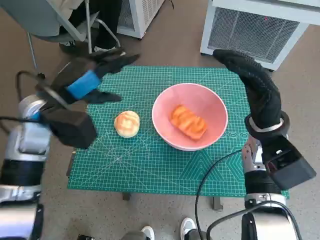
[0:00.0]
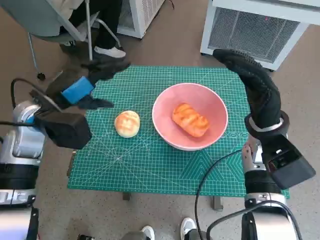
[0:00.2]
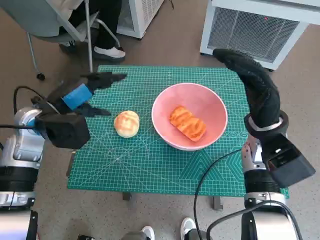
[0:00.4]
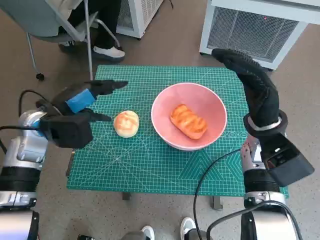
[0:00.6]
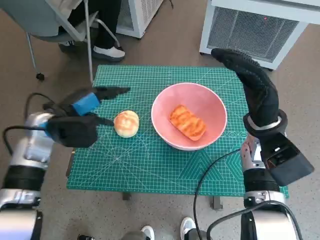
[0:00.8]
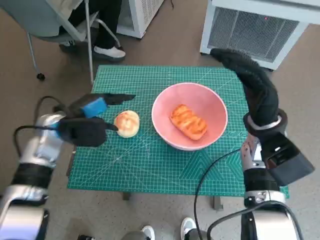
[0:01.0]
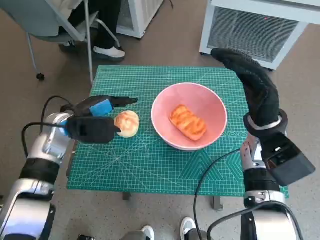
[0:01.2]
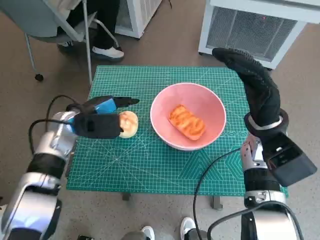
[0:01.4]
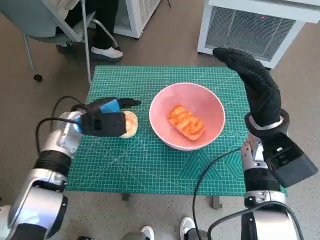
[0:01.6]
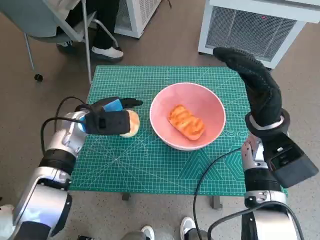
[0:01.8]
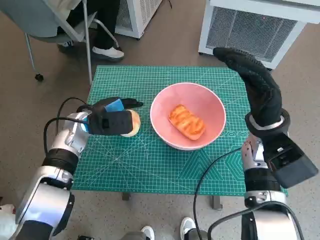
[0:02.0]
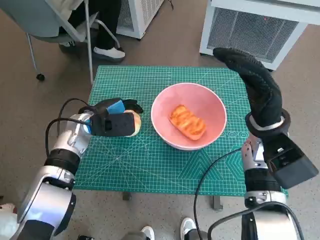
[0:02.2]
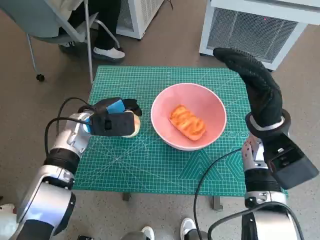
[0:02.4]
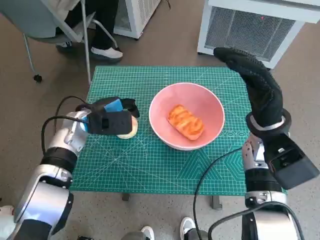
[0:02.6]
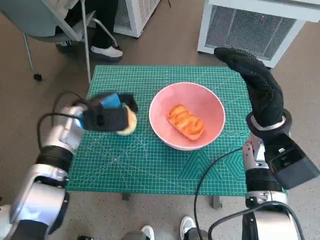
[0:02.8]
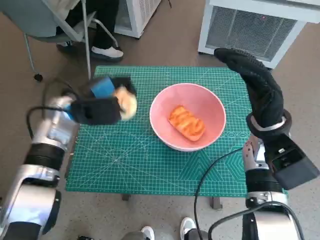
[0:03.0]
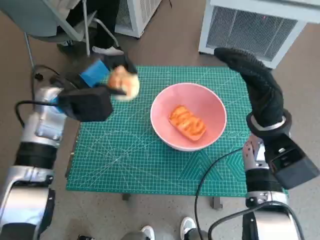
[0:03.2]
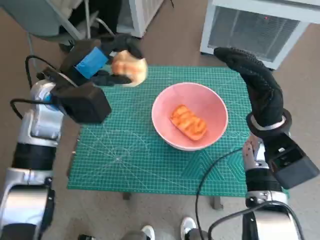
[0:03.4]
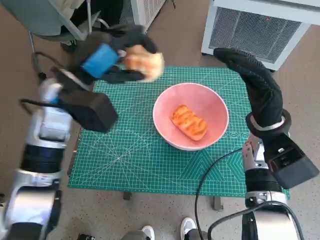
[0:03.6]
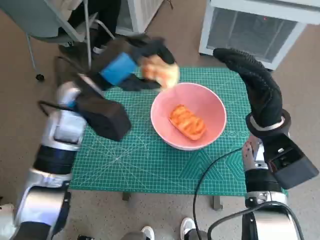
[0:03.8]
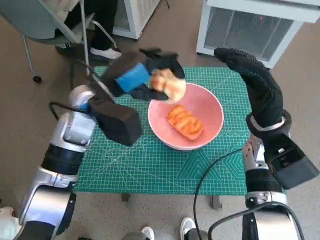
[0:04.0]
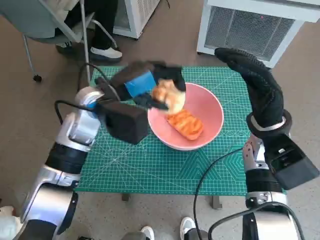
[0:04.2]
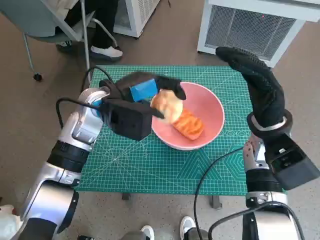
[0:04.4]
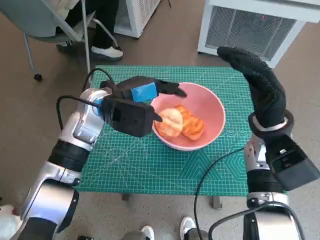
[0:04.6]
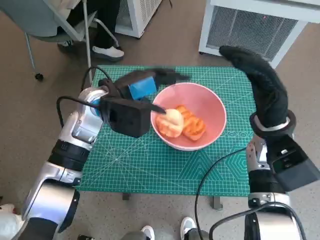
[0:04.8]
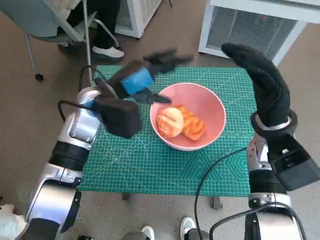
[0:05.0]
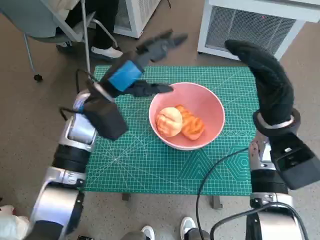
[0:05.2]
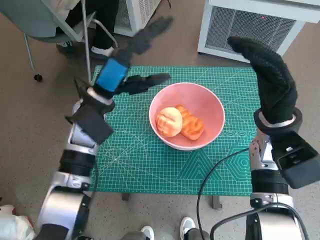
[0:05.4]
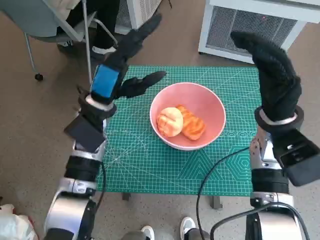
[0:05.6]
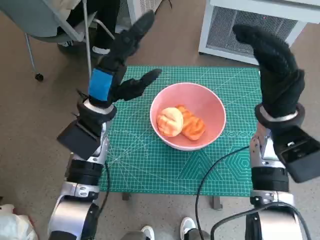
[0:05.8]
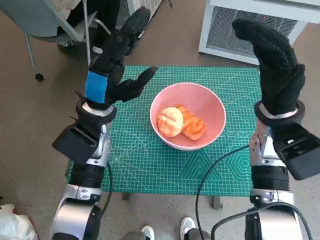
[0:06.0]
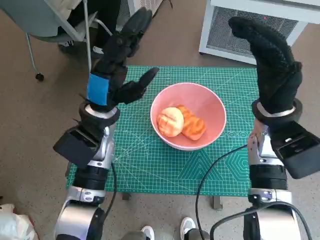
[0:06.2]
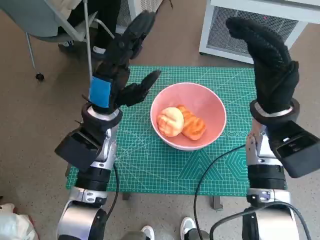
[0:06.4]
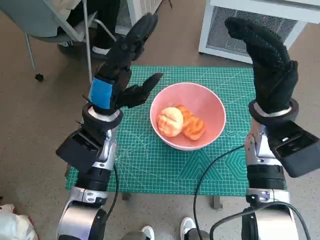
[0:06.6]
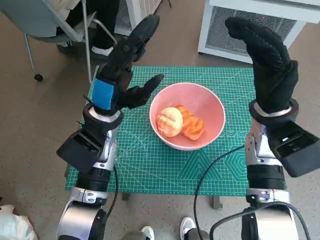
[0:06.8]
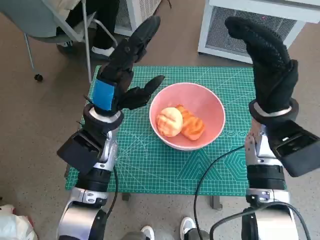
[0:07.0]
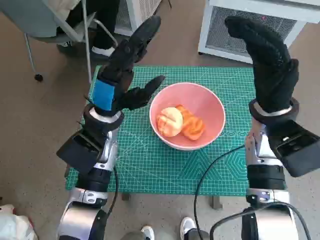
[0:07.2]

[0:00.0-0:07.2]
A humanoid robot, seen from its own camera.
Task of the whole recording: Push the bowl to the center of the table and put the bread into the bowl.
Step, 0:00.0 to 0:02.2: Grasp the round bread with left hand.
Step, 0:02.6 to 0:04.8: Place the round bread in pink bowl with left hand.
0:00.0 to 0:01.4: The left hand heads downward, covering some 10 cm.
0:01.4 to 0:02.8: The hands move only a little.
0:02.8 to 0:04.4: The left hand moves upward and to the right, roughly 10 cm.
0:05.8 to 0:07.2: The hands move only a little.

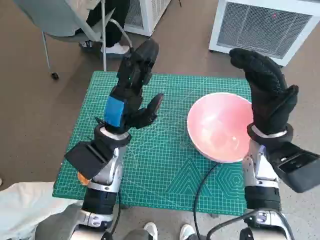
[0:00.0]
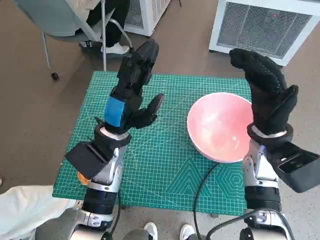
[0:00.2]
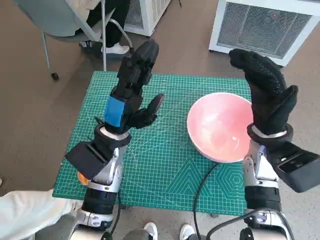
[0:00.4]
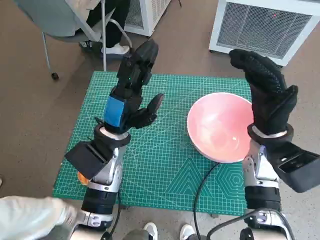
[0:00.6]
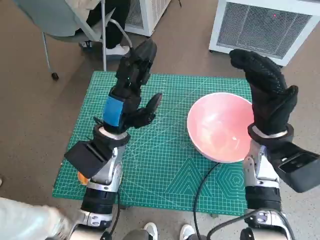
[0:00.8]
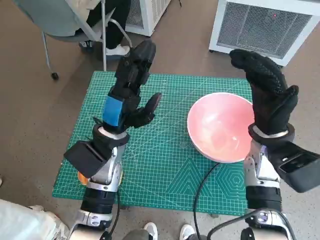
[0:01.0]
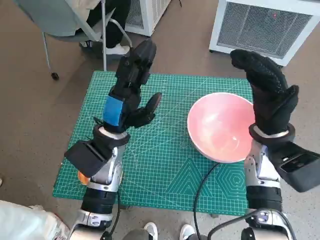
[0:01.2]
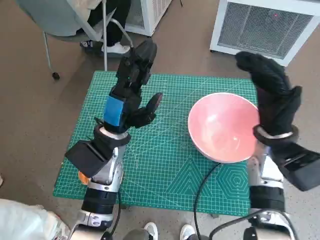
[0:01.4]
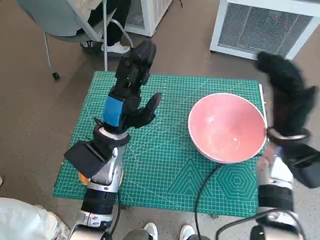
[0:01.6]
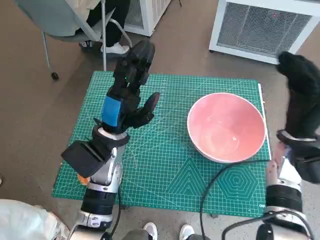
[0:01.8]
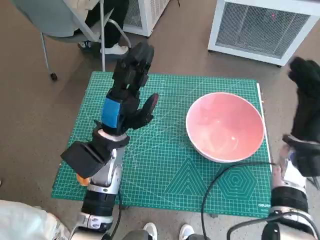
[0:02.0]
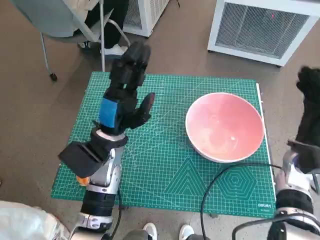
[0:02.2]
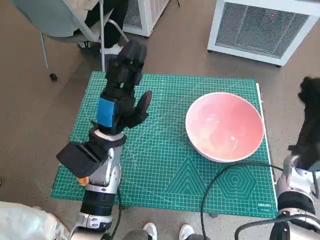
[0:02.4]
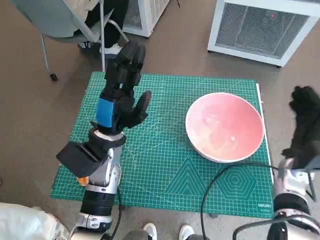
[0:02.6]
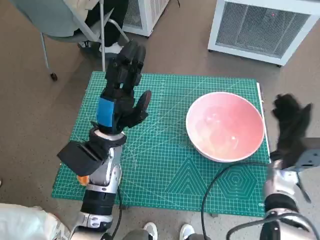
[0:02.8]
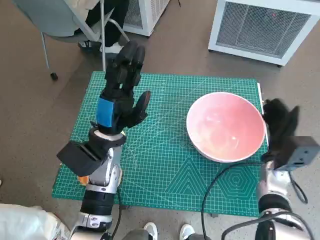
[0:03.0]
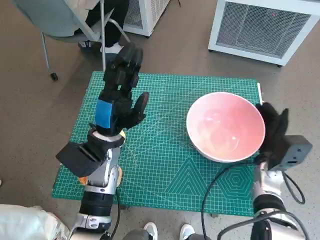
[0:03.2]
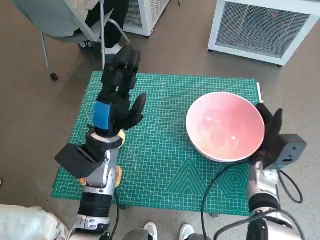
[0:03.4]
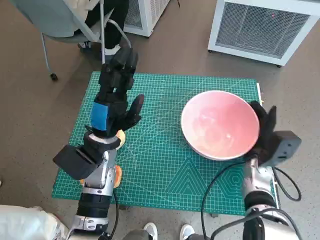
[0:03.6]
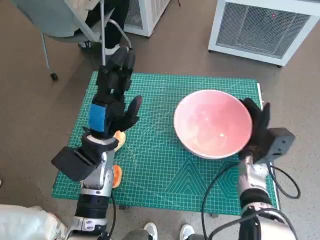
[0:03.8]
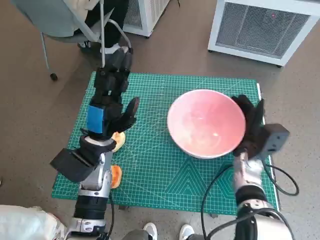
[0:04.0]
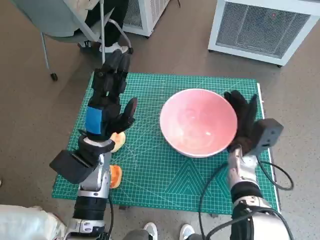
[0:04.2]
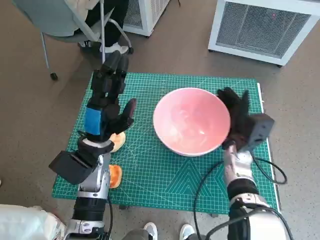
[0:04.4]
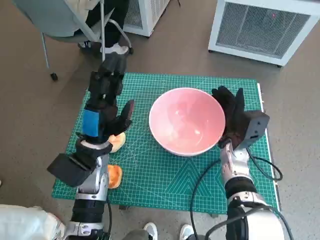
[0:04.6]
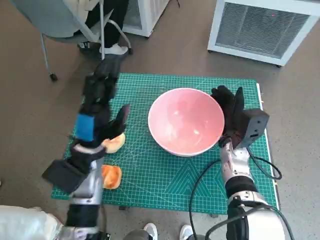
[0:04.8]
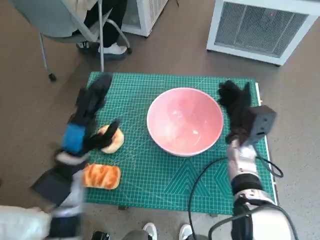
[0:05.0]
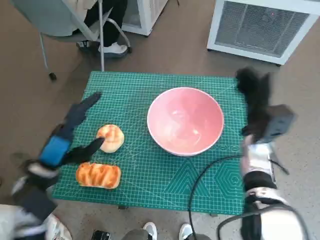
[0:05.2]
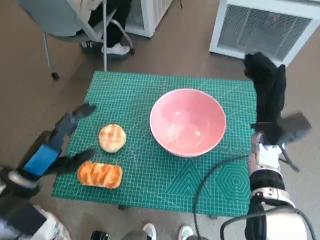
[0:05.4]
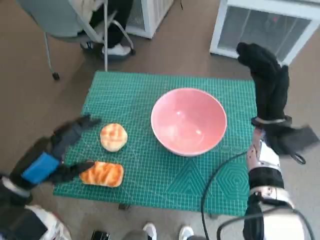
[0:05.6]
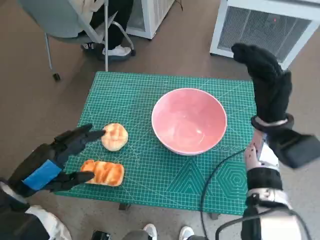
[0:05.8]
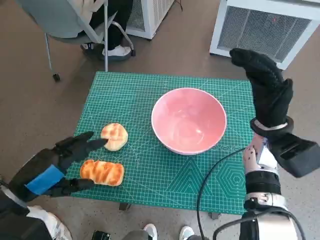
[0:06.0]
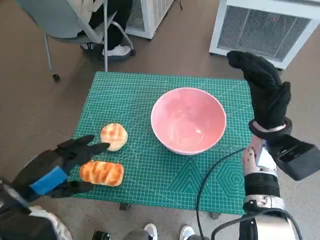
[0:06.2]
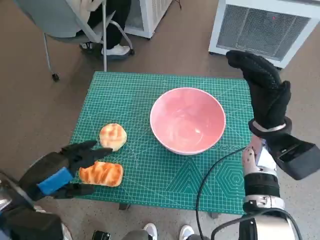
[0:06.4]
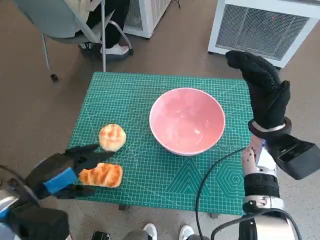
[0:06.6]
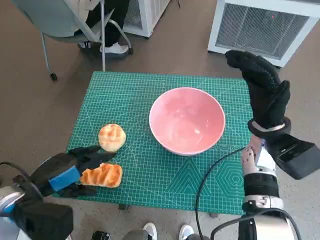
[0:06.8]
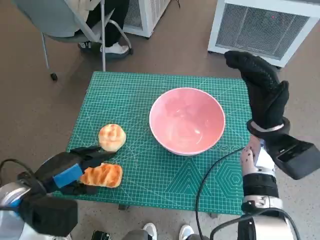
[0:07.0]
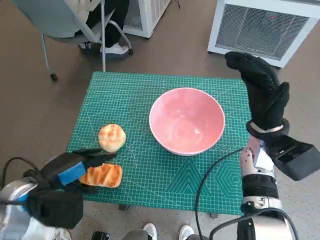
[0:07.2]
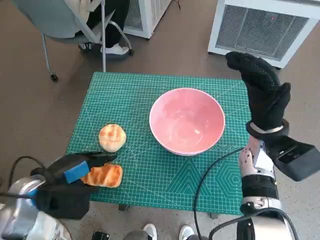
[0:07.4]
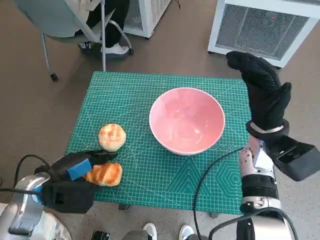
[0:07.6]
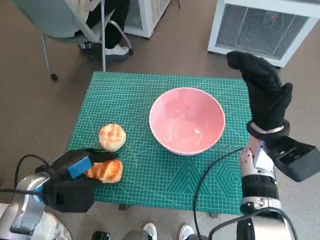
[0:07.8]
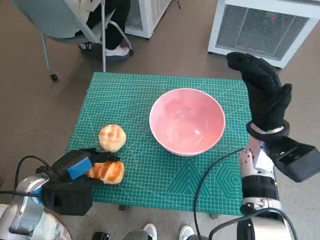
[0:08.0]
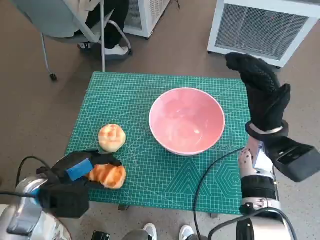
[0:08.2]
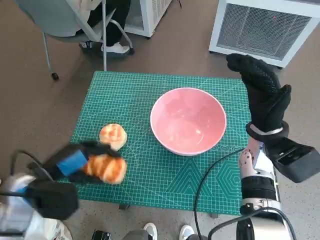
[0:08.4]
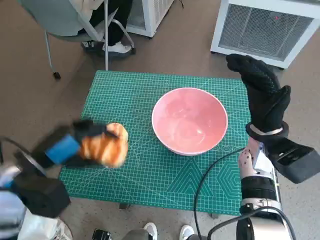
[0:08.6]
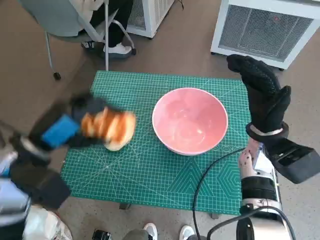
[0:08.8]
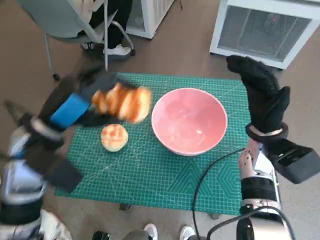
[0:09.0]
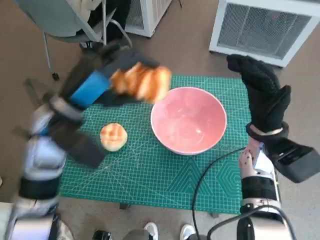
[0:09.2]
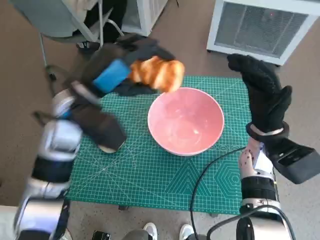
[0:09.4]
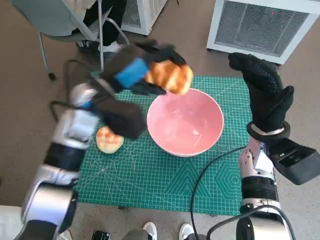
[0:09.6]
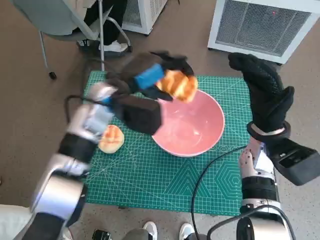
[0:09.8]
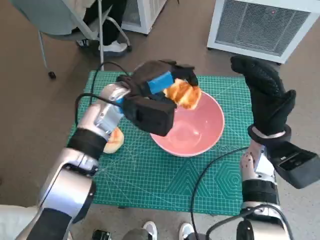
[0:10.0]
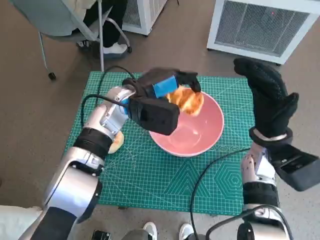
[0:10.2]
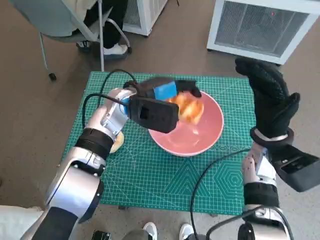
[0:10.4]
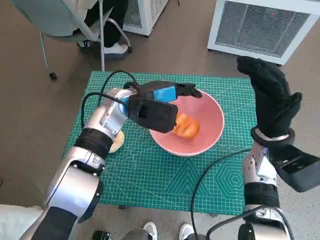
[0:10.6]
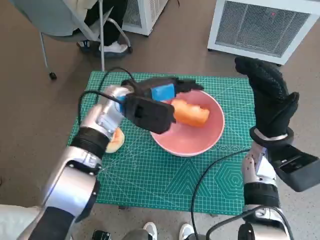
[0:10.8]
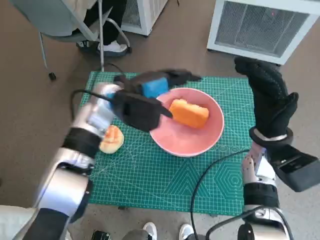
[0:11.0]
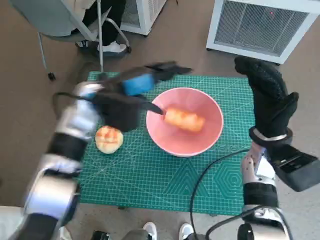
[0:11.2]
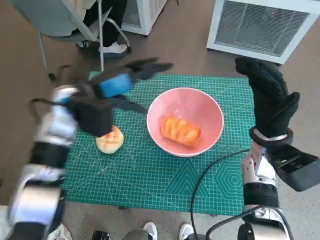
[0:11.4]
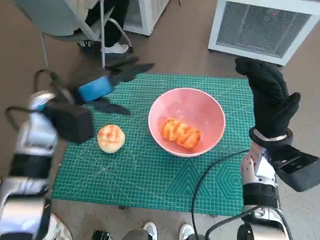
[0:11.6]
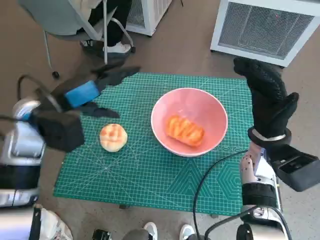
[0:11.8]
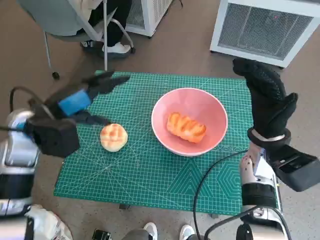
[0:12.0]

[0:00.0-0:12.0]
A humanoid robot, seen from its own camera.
Task of the whole recording: Push the bowl to the center of the table and put the bread into the bowl.
Step, 0:00.0 to 0:05.2: Move the pink bowl to the center of table with right hand.
Step, 0:05.4 to 0:08.0: Grasp the long bread with left hand.
Step, 0:08.2 to 0:11.0: Place the long bread in pink bowl with left hand.
0:01.6 to 0:03.0: The right hand shifts roughly 10 cm downward.
0:03.0 to 0:04.4: The right hand shifts roughly 10 cm to the left.
0:04.4 to 0:06.0: The left hand travels backward, to the left and upward by some 15 cm, while the right hand heads upward, covering approximately 10 cm.
0:06.0 to 0:07.6: The left hand moves downward and forward, approximately 10 cm.
0:07.6 to 0:09.0: The left hand travels upward by about 10 cm.
0:09.0 to 0:10.4: The left hand travels to the right and forward by approximately 15 cm.
0:10.4 to 0:12.0: The left hand travels to the left and backward by some 15 cm.

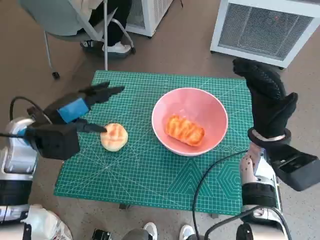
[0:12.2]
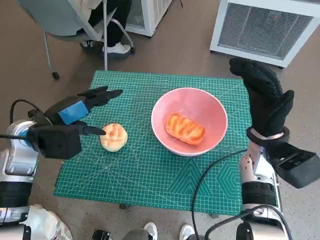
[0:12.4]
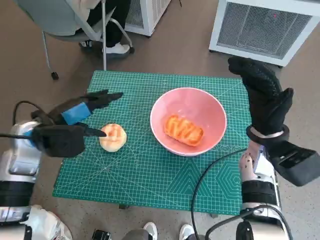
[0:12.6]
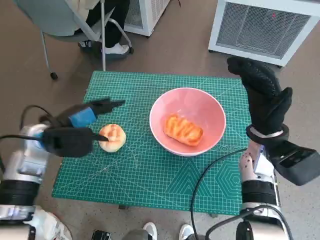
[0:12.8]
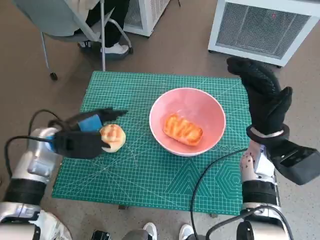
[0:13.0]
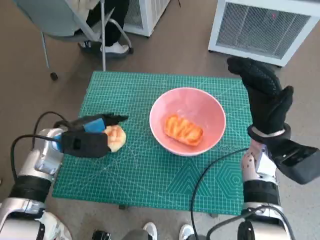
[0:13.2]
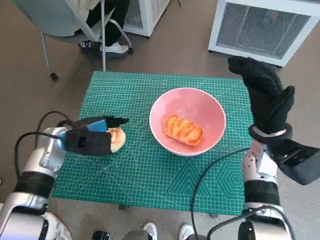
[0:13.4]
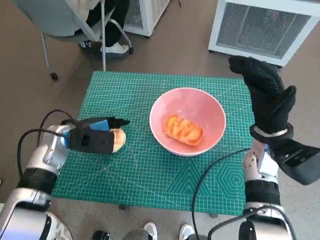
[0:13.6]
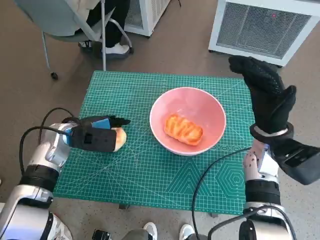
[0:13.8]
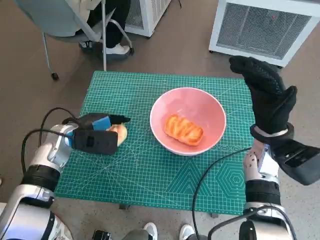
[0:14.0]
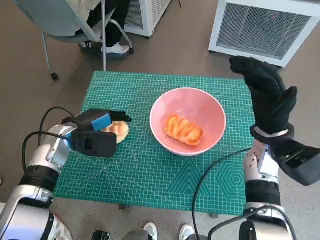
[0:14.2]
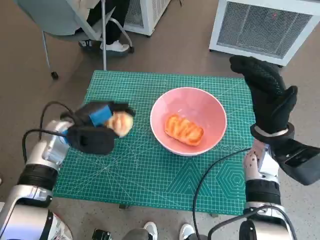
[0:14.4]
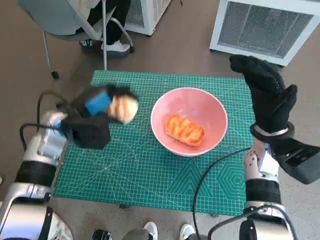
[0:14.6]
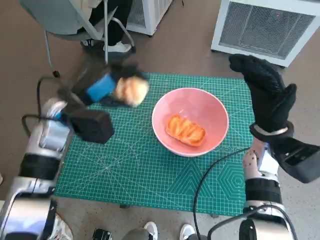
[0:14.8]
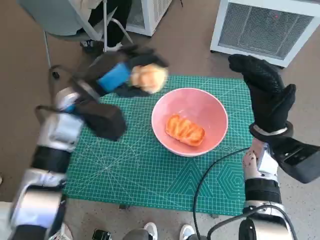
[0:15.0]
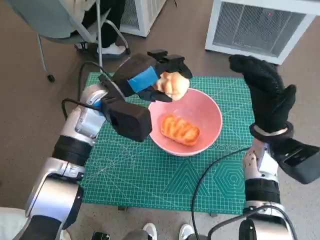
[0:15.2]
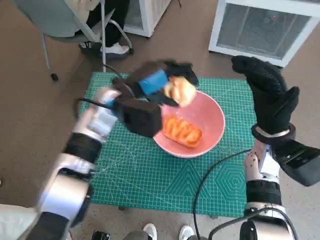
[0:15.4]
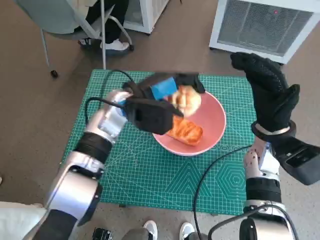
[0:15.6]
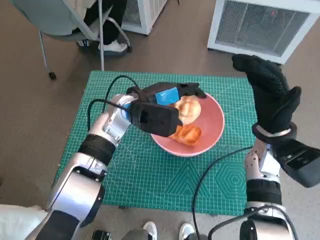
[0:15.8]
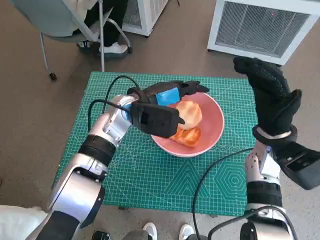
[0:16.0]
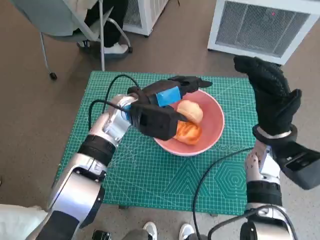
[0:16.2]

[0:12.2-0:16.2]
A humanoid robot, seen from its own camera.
Task of the whole recording: Push the bowl to the center of the table and put the bread into the bowl.
Step, 0:12.2 to 0:13.8: Grasp the round bread with left hand.
0:12.2 to 0:13.6: The left hand is displaced downward by some 5 cm.
0:13.6 to 0:14.8: The left hand goes approximately 5 cm upward.
0:14.8 to 0:16.2: The left hand heads to the right, covering some 10 cm.
